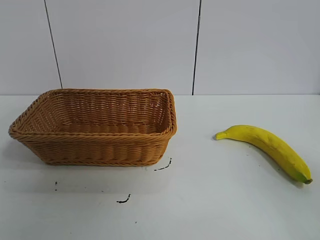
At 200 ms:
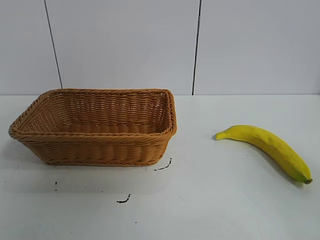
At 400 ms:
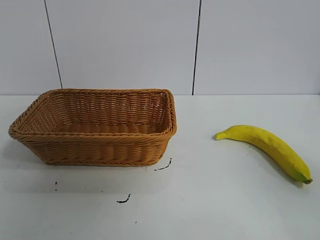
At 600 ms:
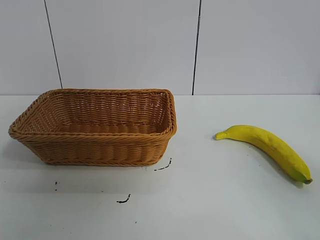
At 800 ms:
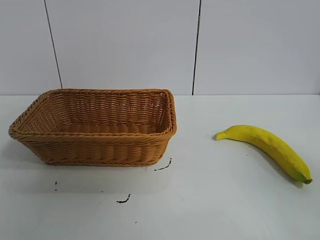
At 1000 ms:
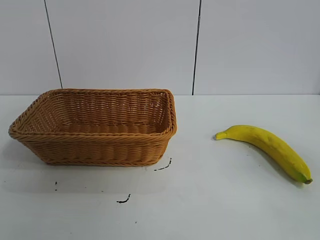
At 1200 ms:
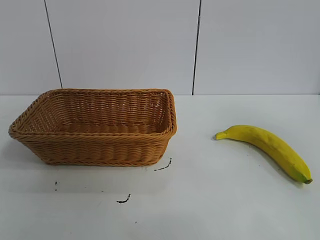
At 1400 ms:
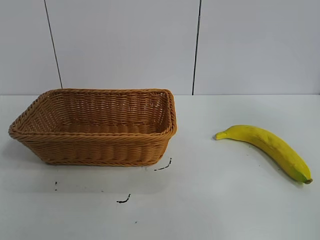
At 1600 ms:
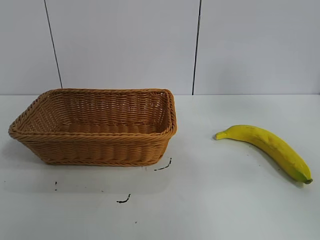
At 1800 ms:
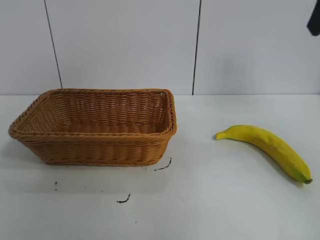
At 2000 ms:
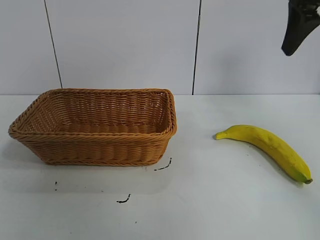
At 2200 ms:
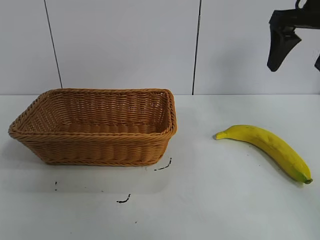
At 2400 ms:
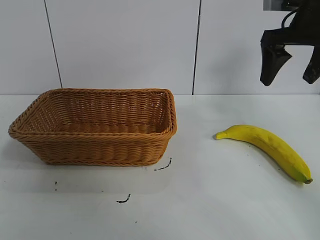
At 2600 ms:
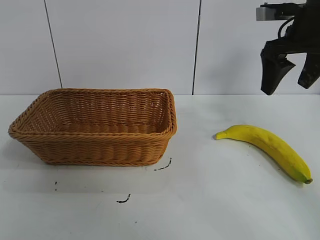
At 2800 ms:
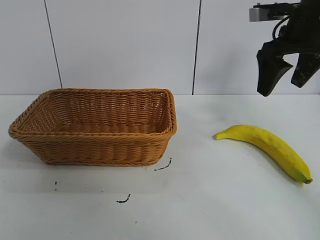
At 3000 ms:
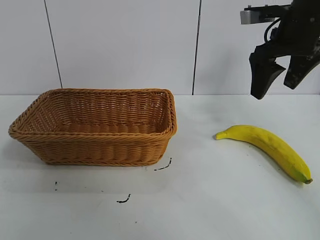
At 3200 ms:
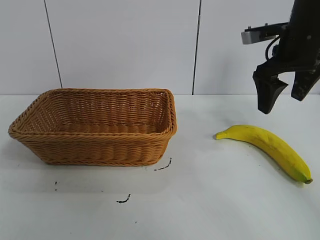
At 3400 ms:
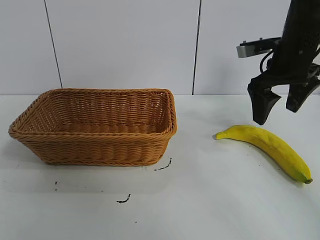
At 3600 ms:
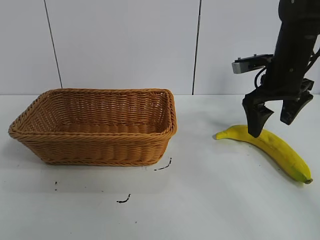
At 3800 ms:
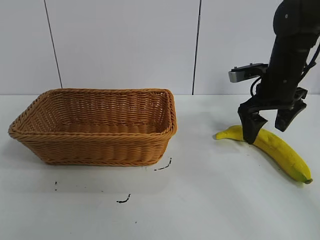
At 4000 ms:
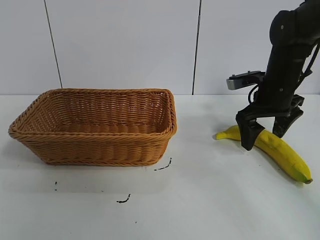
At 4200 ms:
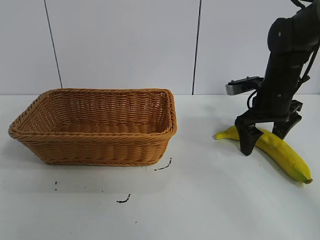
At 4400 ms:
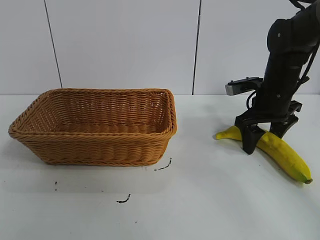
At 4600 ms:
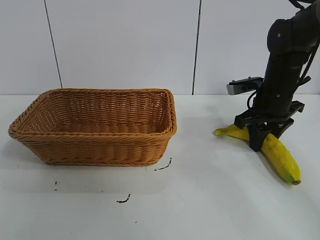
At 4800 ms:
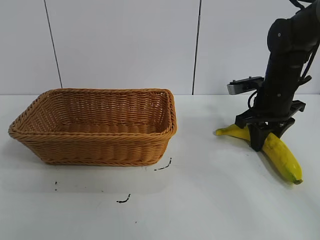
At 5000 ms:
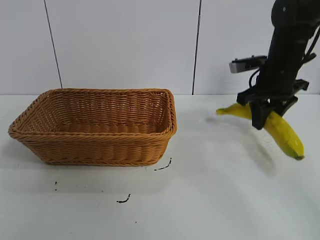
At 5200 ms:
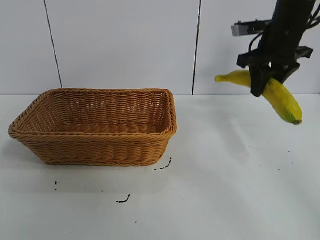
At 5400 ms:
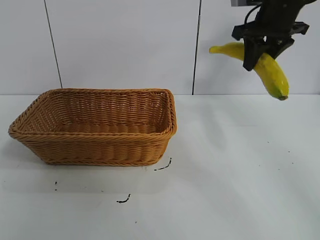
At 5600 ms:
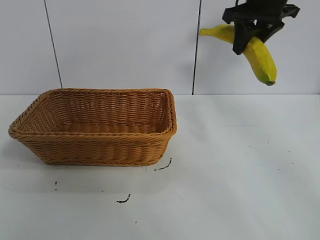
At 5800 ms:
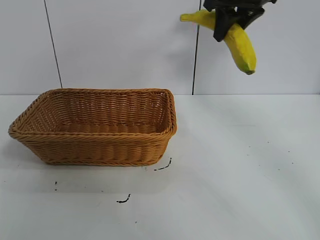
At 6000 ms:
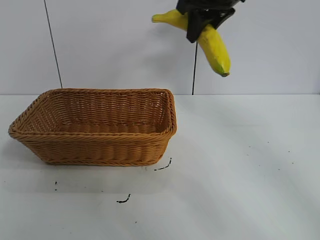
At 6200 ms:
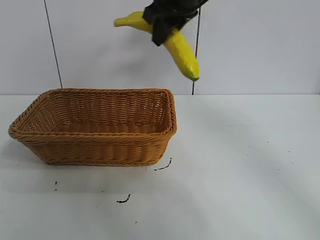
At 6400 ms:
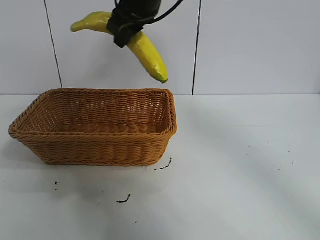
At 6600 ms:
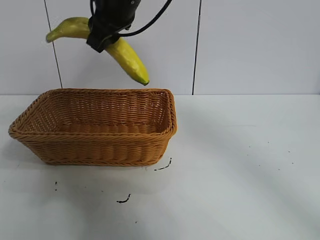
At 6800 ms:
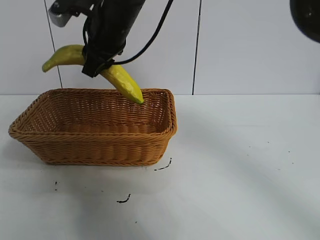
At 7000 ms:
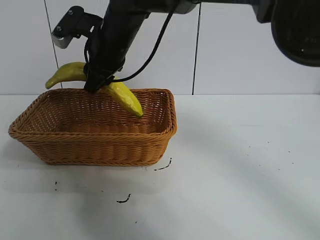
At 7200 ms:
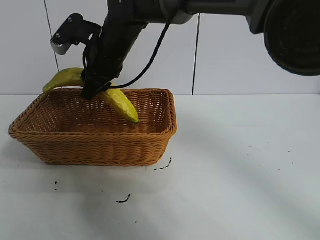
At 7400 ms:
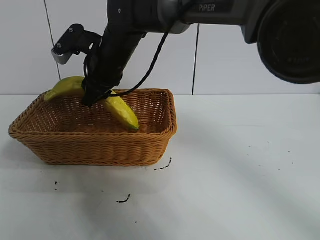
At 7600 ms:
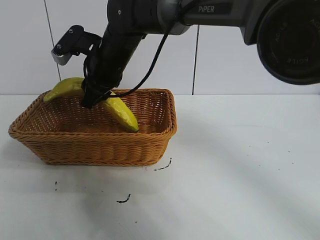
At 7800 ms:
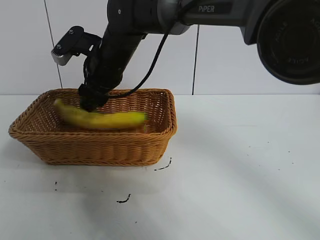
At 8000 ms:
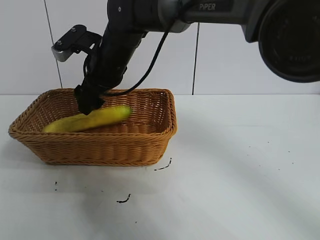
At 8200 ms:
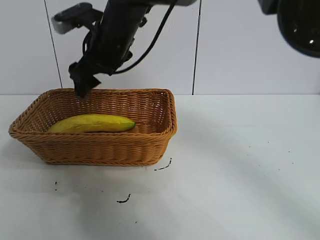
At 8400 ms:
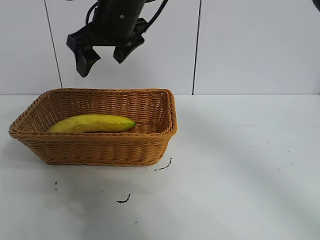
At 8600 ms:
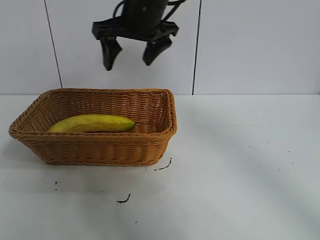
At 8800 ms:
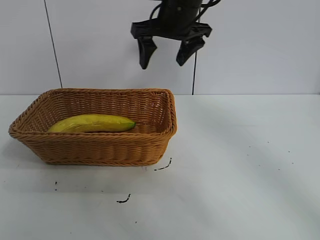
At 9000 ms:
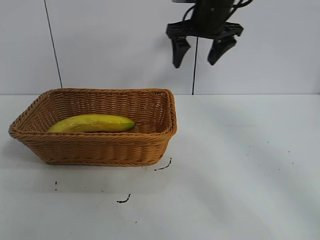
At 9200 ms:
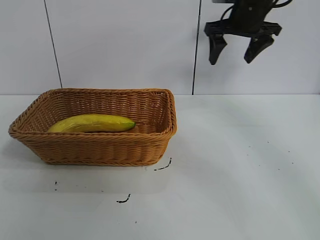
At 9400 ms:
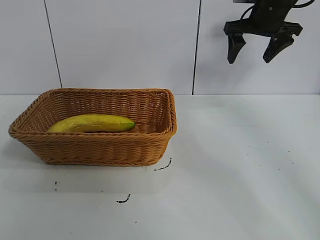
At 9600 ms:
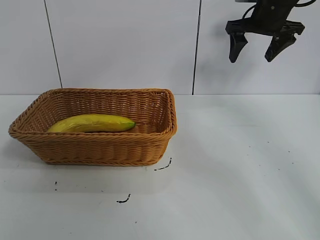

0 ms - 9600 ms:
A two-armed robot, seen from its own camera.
Task of the whole recording: pick up the banana and put it into the basket.
Step, 800 ms - 4600 ms: Grasp the banana with right gripper.
Step, 4800 ms - 8000 ms: Place the banana in the basket with right gripper.
